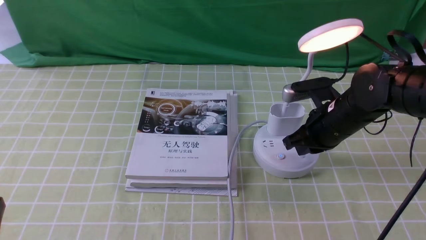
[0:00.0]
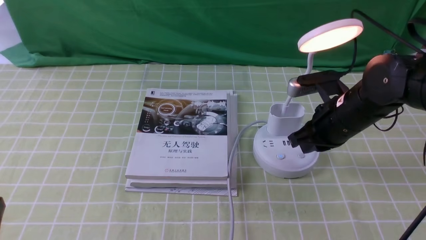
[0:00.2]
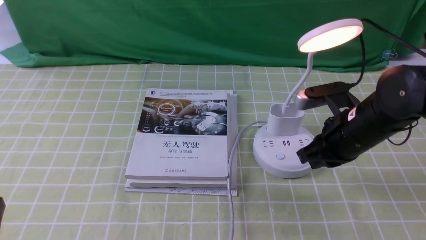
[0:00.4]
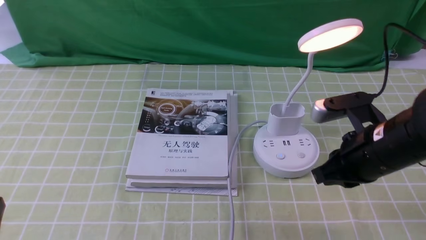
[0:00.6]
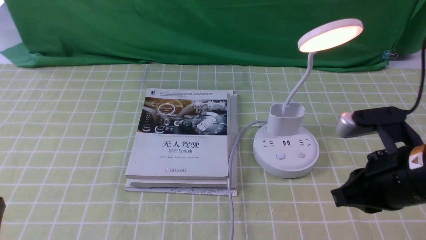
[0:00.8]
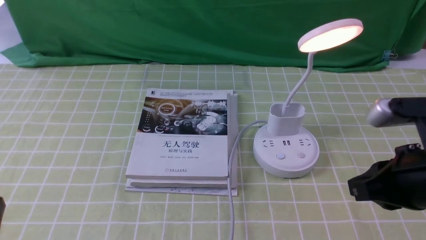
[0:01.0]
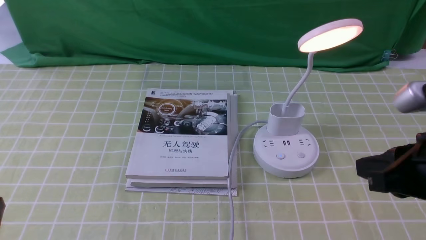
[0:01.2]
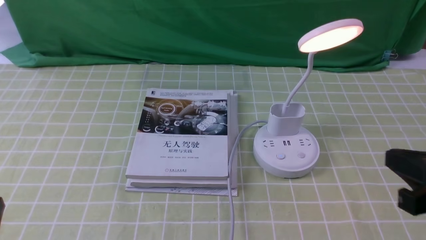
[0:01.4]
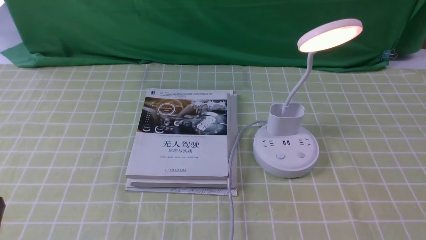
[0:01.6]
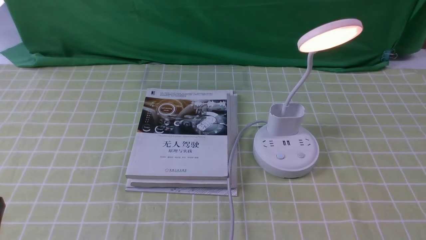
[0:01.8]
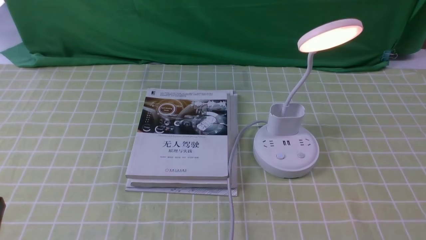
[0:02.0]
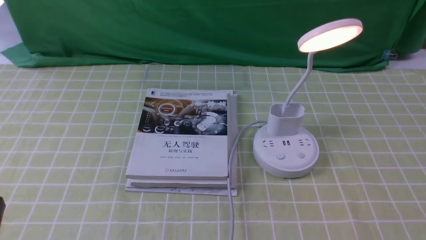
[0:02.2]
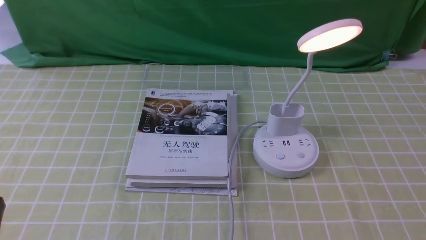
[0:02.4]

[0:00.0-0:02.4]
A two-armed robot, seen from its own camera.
0:00.0 to 0:01.2: The right gripper moves backward and upward, about 20 cm.
0:01.2 to 0:02.4: The right gripper moves downward, backward and to the right, some 15 cm.

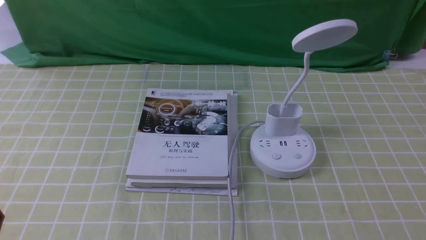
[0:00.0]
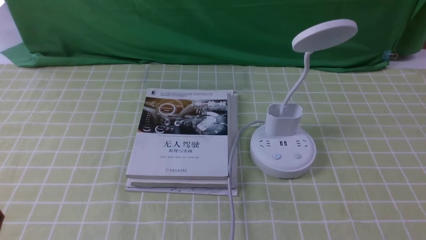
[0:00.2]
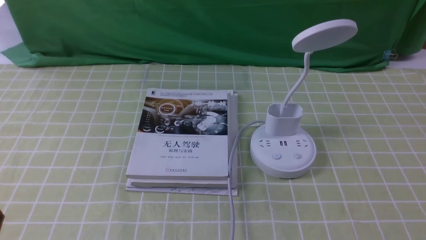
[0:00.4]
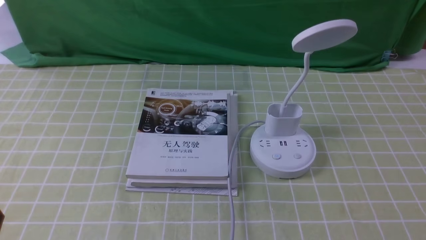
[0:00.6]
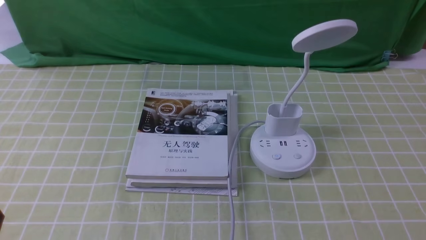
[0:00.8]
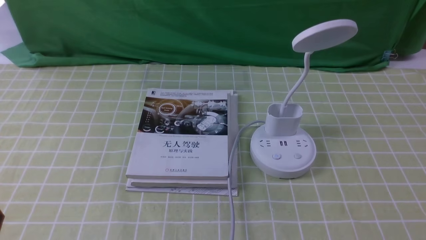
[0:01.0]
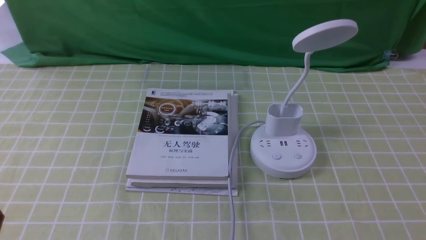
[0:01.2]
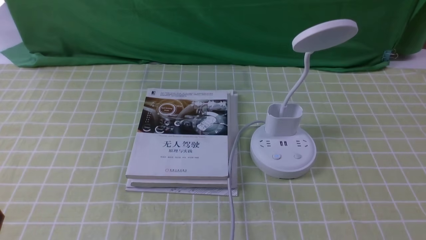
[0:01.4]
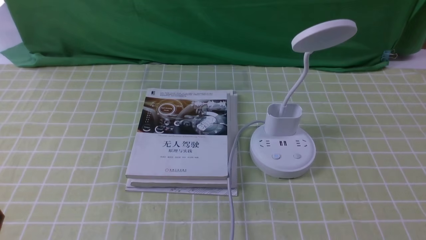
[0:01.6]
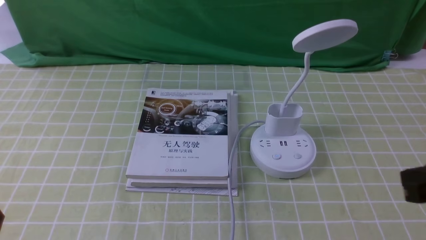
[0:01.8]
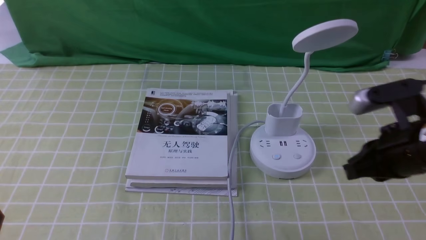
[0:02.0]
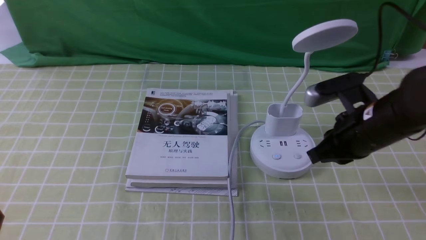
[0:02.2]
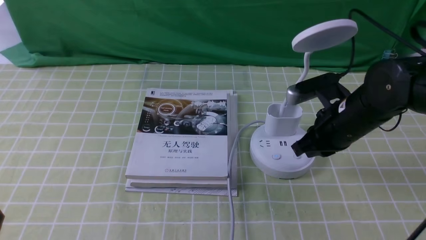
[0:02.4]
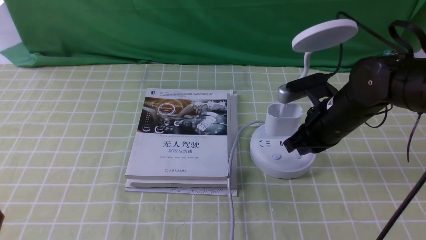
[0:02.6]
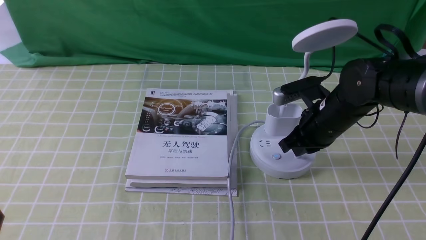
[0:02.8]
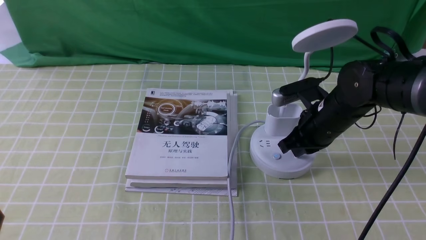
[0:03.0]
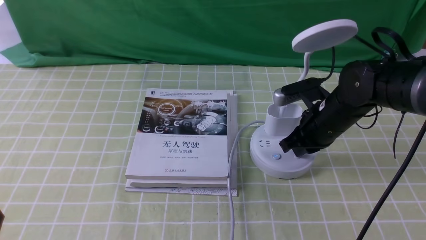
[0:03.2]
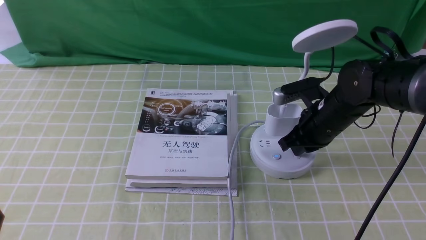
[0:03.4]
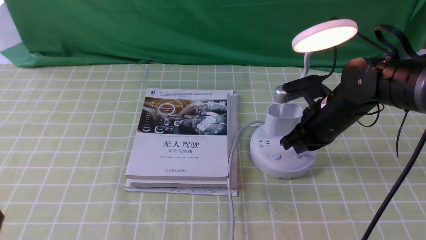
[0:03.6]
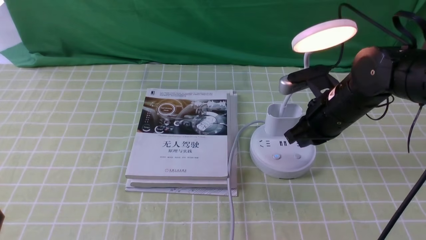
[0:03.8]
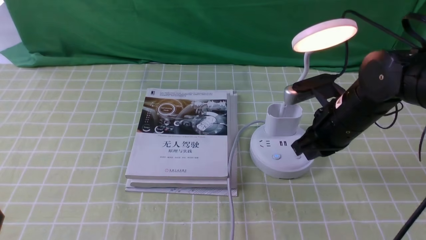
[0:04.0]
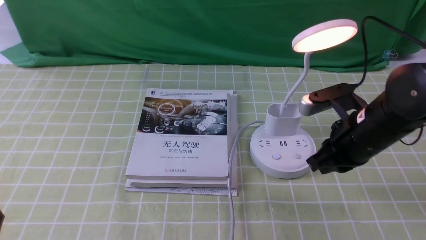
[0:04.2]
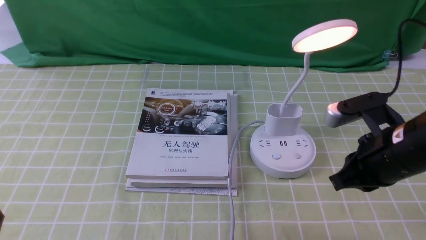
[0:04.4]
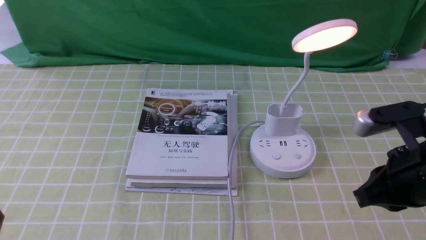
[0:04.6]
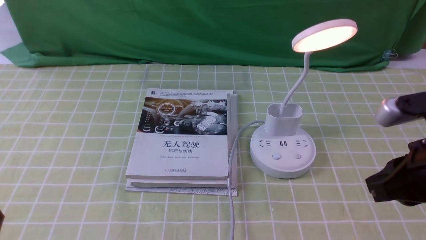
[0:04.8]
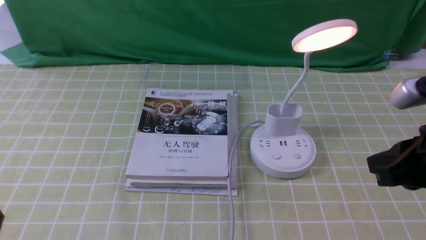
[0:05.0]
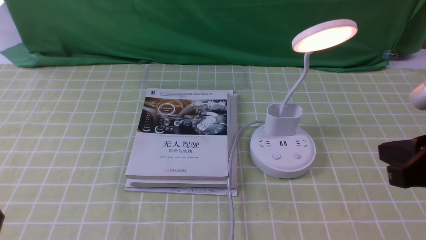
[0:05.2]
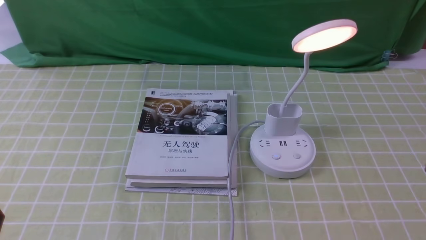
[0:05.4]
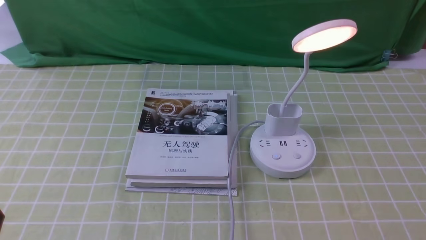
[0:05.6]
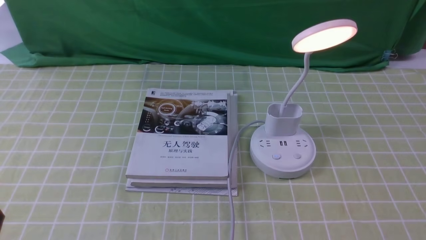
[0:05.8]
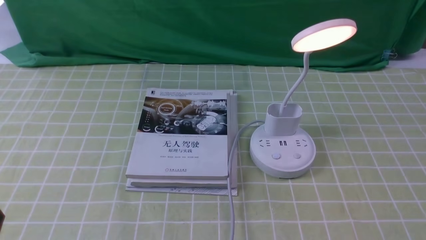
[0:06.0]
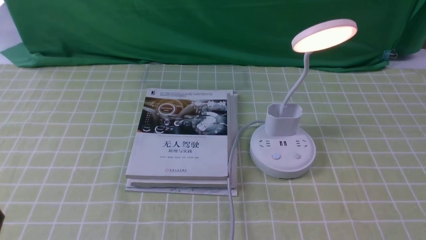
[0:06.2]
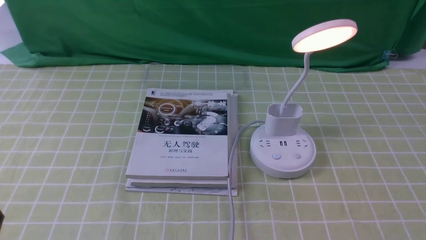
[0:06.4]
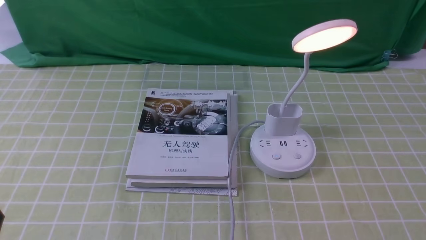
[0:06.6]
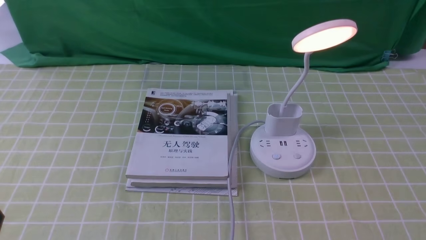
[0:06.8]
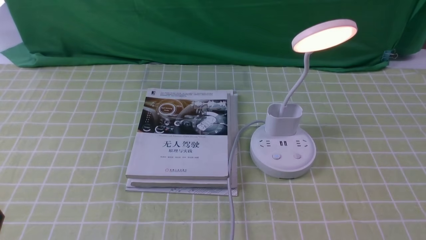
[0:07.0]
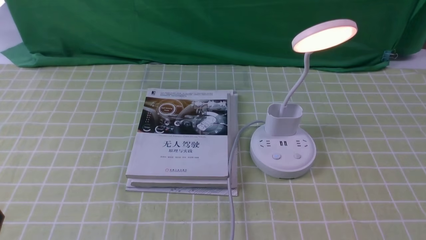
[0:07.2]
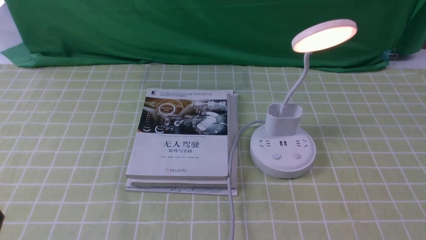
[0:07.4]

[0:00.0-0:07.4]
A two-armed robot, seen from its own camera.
Step, 0:00.0 to 0:04.2: use the right arm to press the button switch on the lamp holder.
0:01.4 to 0:03.0: The right gripper is displaced forward and to the left by about 30 cm.
0:03.0 to 0:04.4: The right gripper shifts approximately 15 cm backward and upward.
0:04.4 to 0:06.0: The right gripper goes roughly 20 cm backward and to the right.

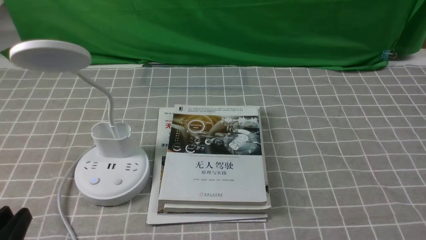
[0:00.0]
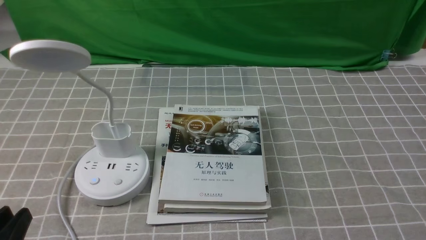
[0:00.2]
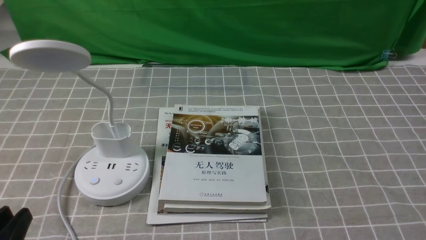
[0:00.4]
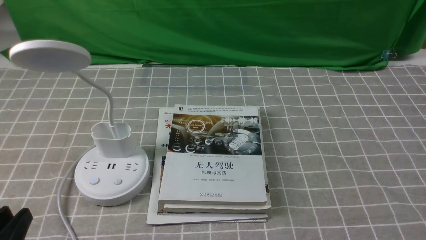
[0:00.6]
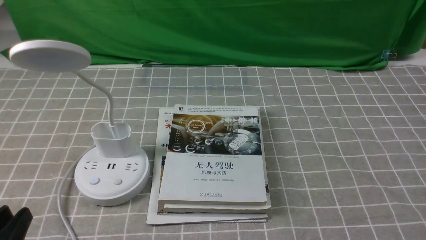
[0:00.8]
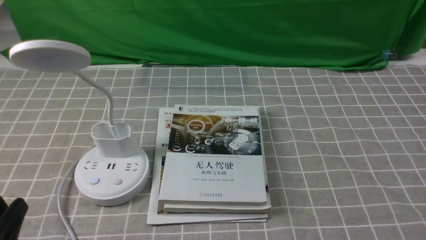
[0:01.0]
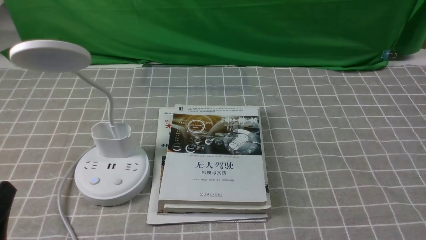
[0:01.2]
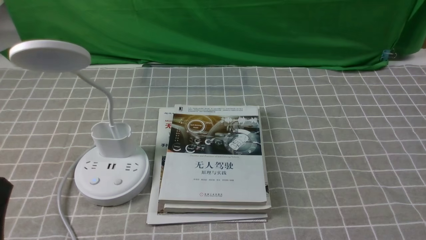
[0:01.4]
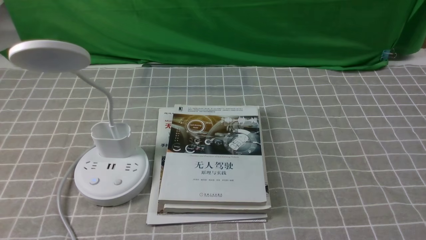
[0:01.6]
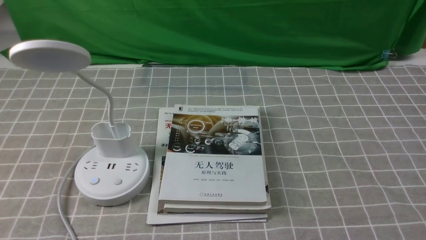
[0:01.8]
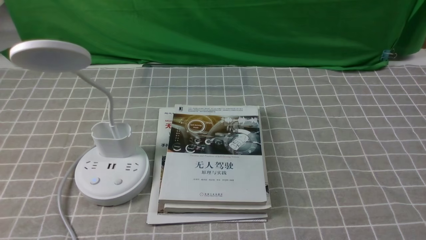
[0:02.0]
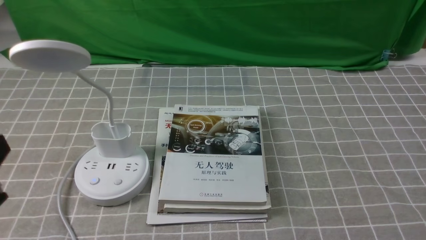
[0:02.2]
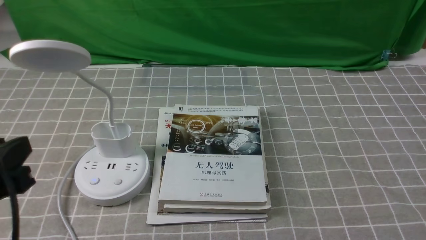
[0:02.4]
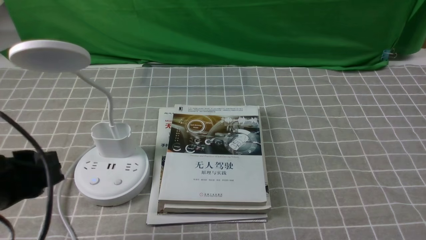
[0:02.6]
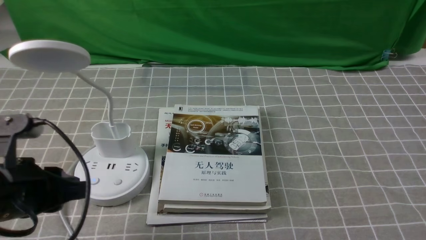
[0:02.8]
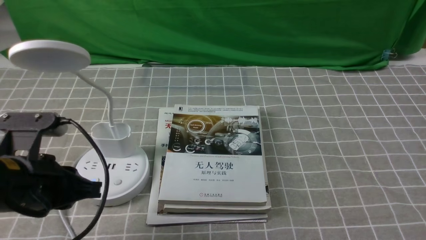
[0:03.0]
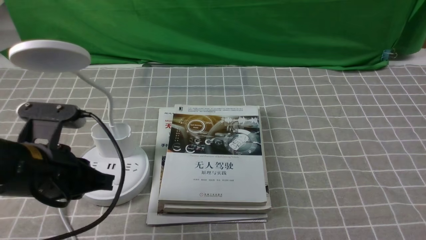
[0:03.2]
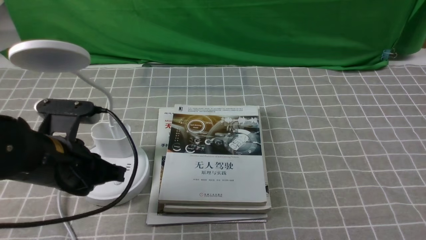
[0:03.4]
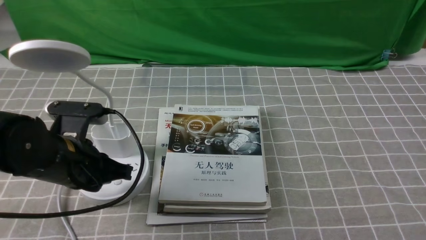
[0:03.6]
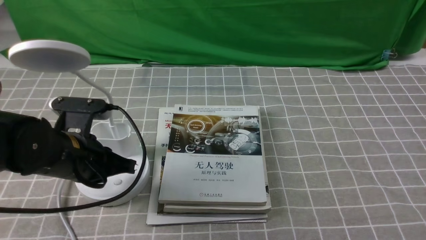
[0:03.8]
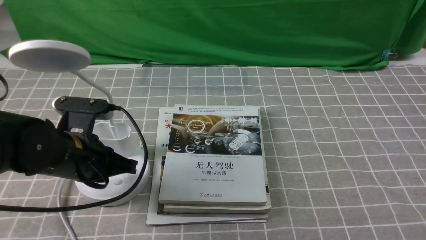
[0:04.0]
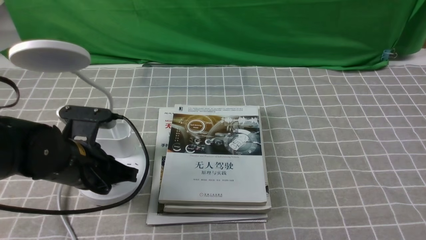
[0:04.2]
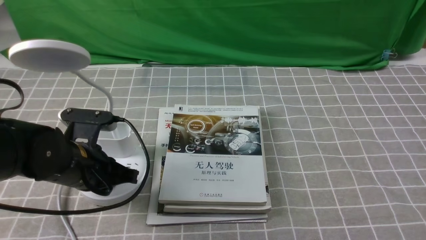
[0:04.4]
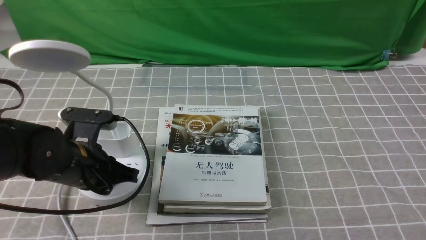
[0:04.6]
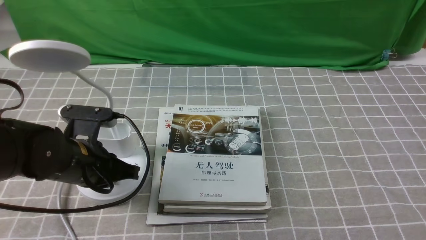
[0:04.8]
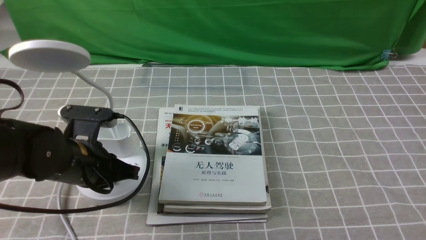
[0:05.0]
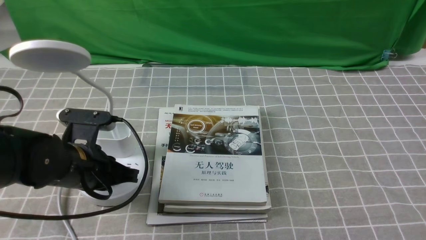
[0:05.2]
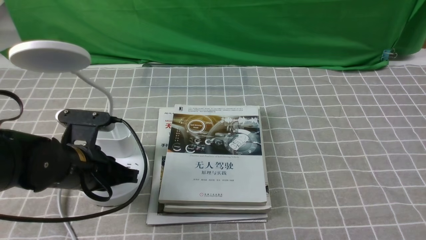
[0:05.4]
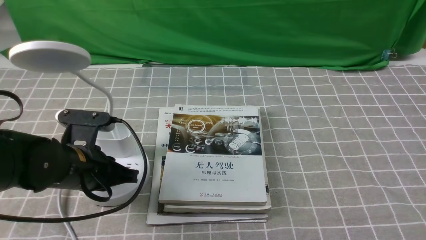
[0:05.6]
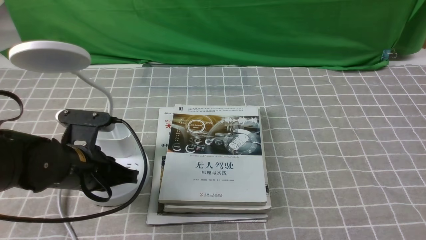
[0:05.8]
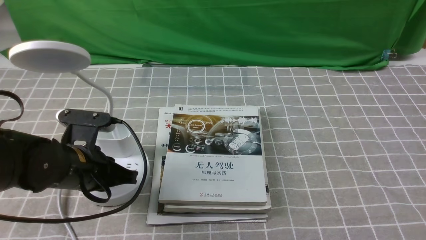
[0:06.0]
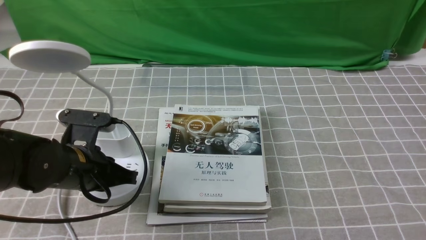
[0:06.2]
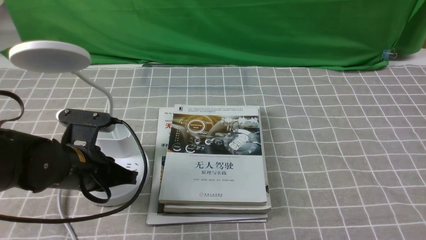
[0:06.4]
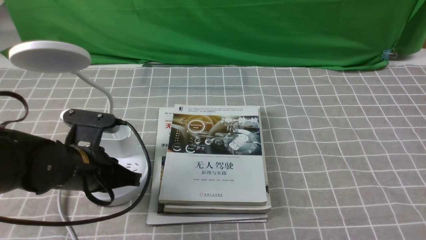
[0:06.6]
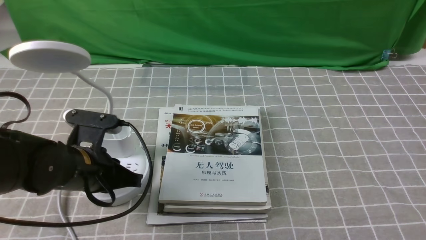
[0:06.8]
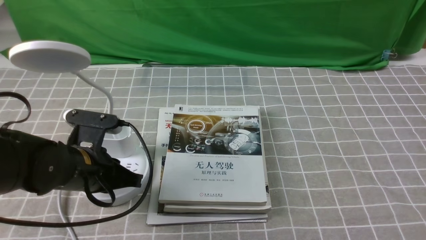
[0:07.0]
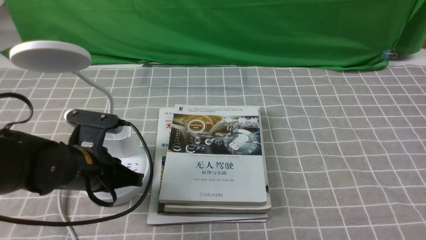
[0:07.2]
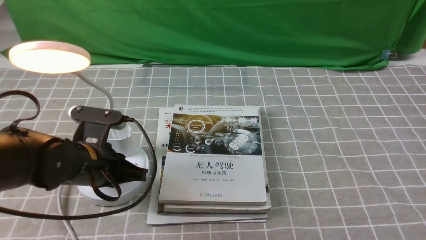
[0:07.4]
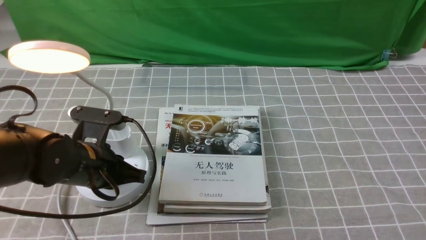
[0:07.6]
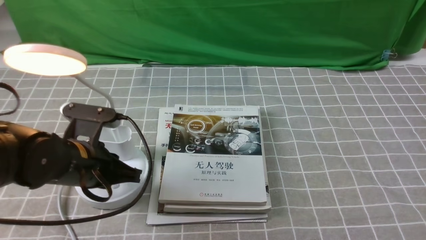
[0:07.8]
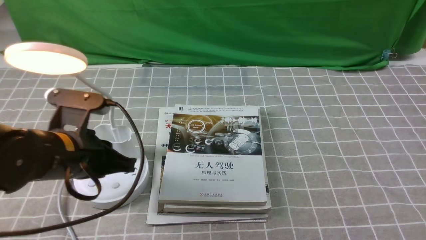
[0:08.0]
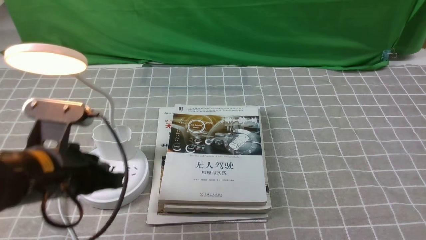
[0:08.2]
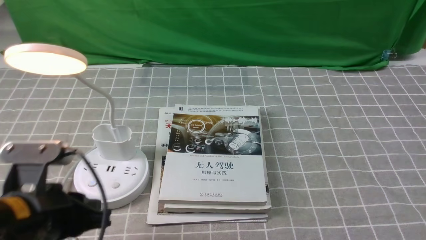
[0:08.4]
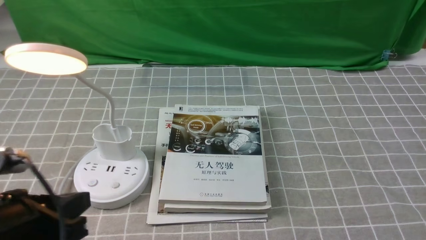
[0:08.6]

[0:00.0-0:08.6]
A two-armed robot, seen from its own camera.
Step, 0:00.0 to 0:07.6: use the left arm to press the button switch on the lamp holder.
0:01.4 to 0:02.8: The left gripper is displaced forward by about 10 cm.
0:02.8 to 0:04.4: The left gripper shifts roughly 10 cm forward and downward, and closes.
0:04.4 to 0:05.8: Both grippers stay put.
0:05.8 to 0:07.2: Both grippers stay put.
0:07.2 to 0:08.6: The left gripper shifts some 15 cm backward and upward.
